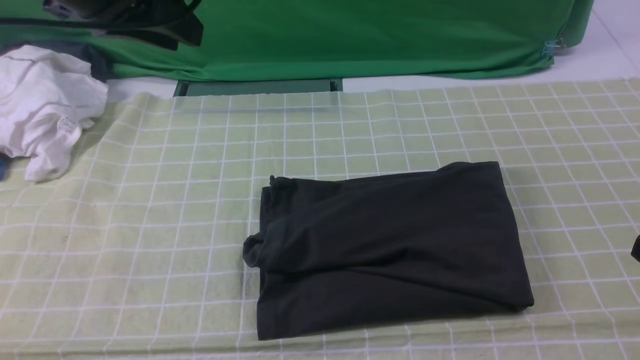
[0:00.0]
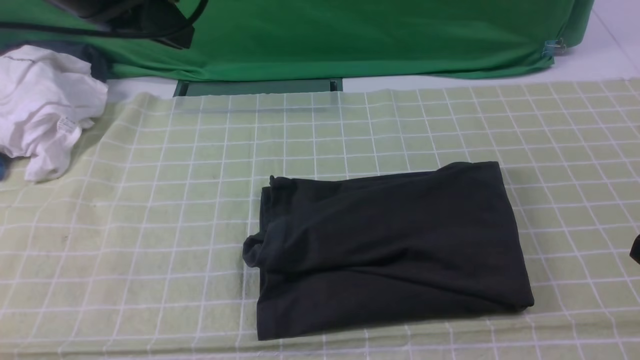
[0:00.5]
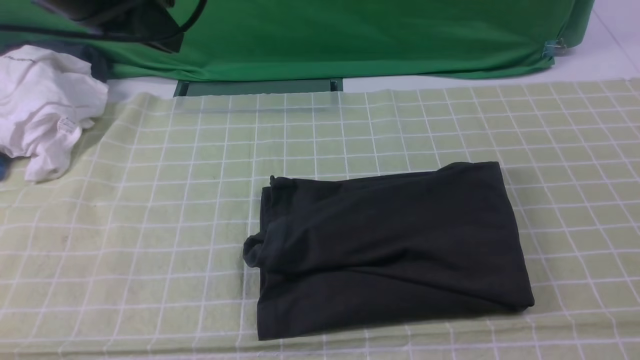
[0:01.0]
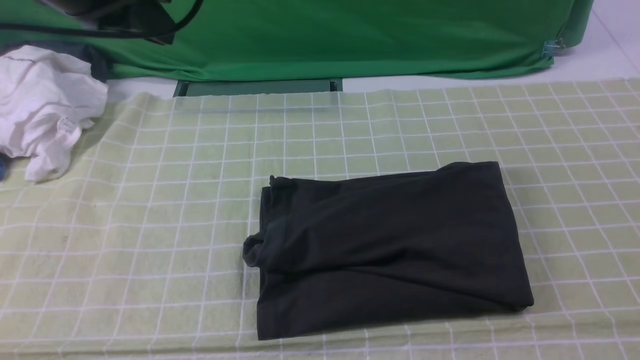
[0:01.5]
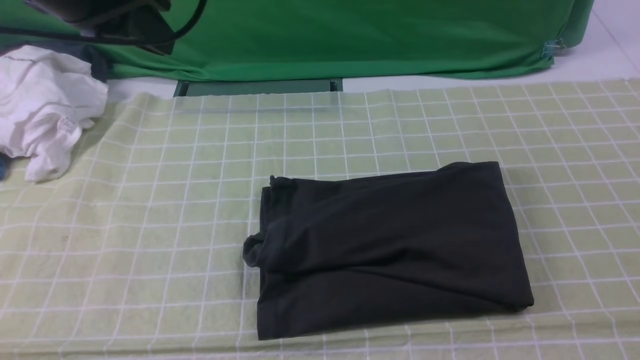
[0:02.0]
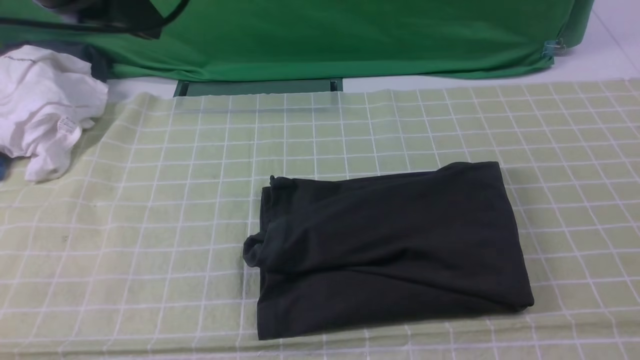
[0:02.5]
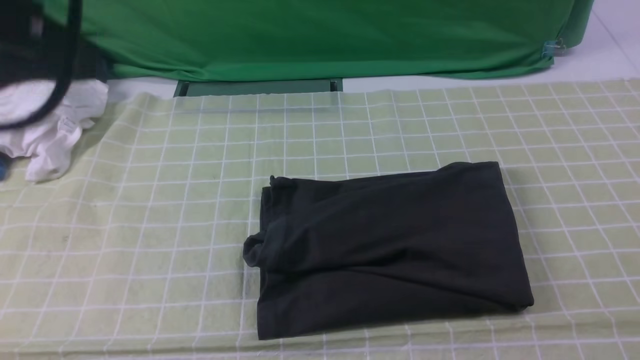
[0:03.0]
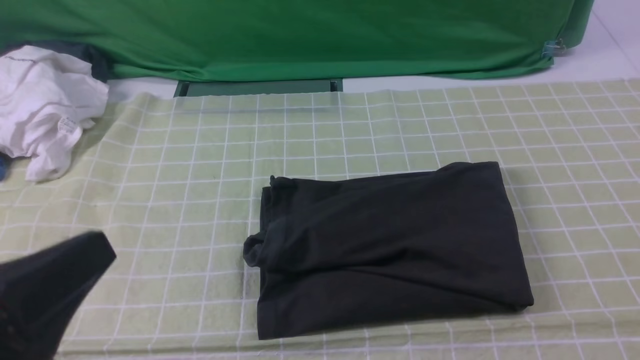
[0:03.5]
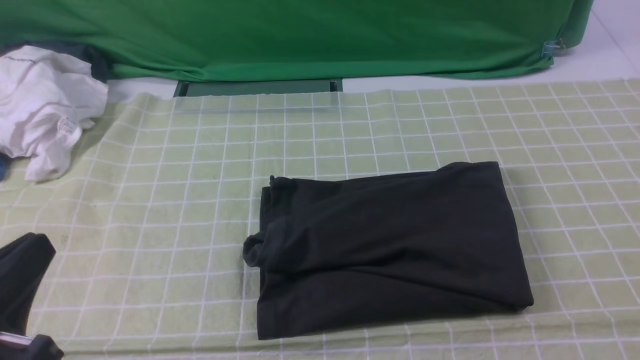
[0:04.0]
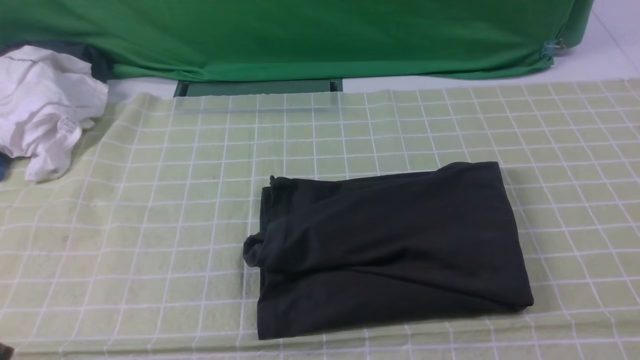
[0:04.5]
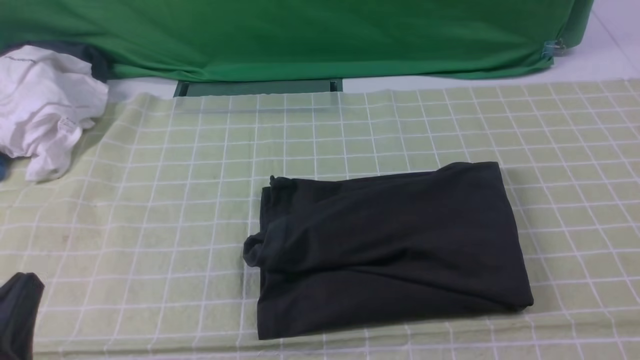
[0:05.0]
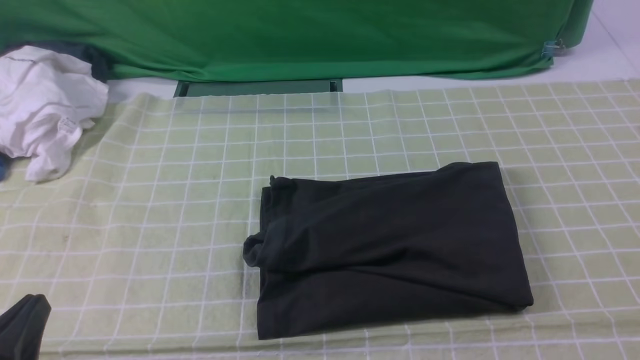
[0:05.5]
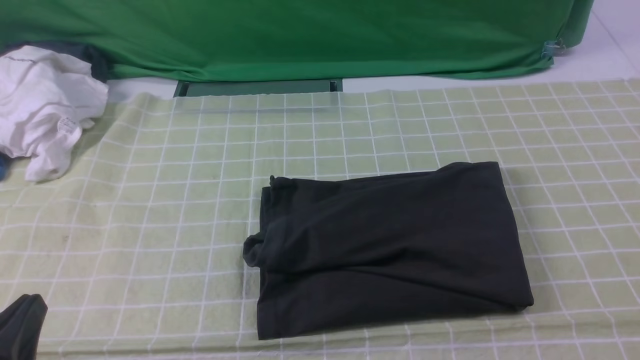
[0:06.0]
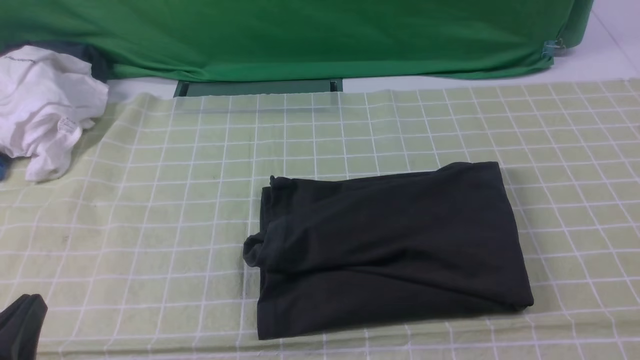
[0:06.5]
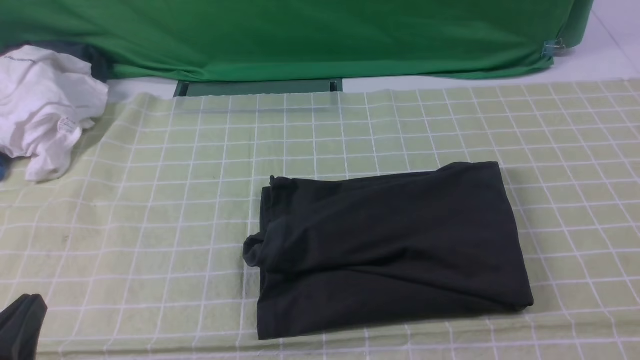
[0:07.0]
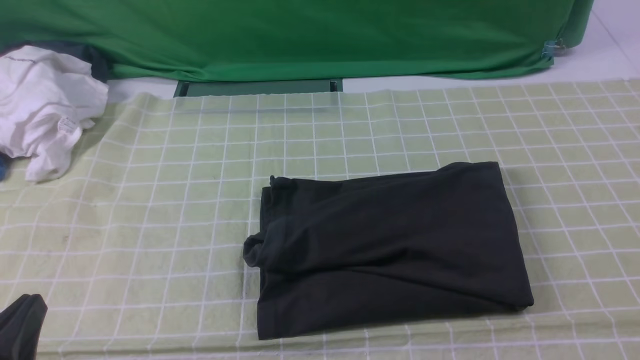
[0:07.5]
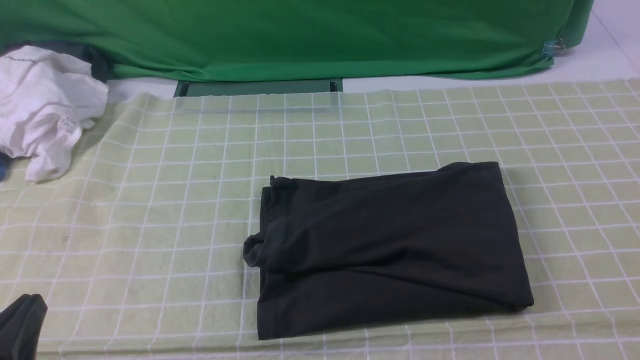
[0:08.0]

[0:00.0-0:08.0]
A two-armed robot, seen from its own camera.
0:00.0 to 0:02.0: The left gripper closes.
0:02.0 to 0:04.0: The left gripper heads backward and downward, covering roughly 30 cm.
0:04.0 to 0:06.0: The left gripper travels downward by about 10 cm.
0:06.0 to 0:08.0: Both grippers stay put.
